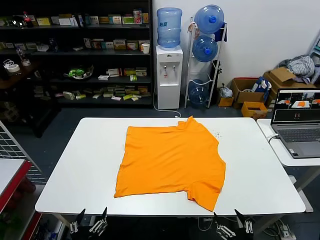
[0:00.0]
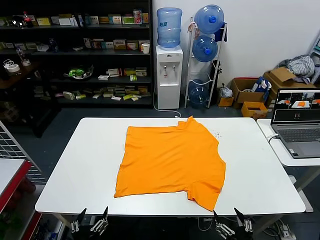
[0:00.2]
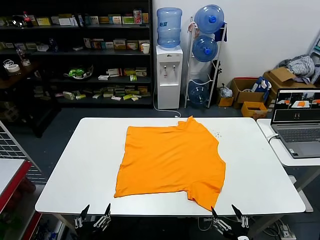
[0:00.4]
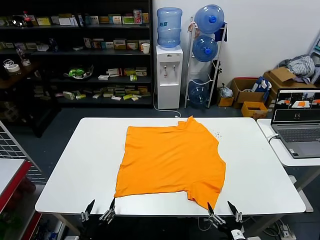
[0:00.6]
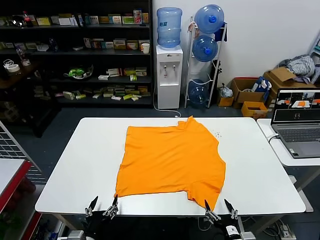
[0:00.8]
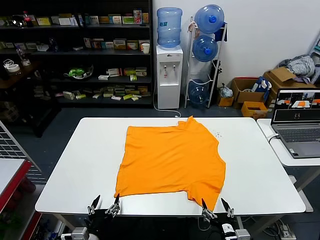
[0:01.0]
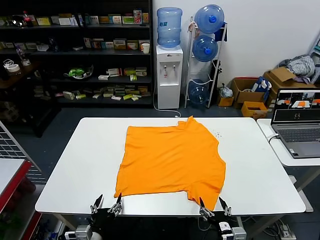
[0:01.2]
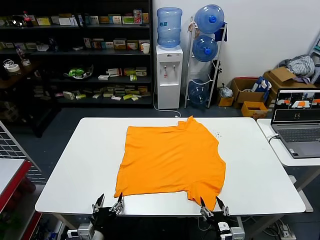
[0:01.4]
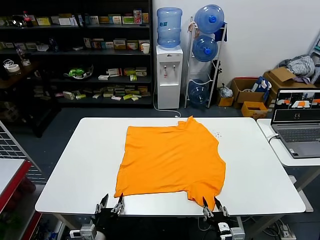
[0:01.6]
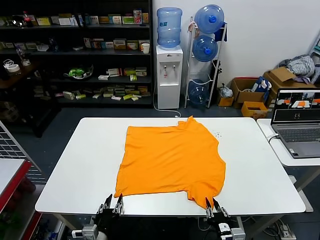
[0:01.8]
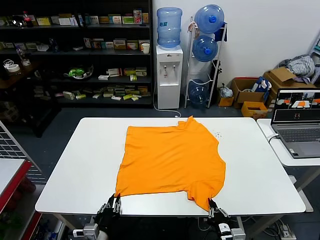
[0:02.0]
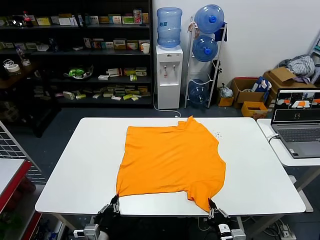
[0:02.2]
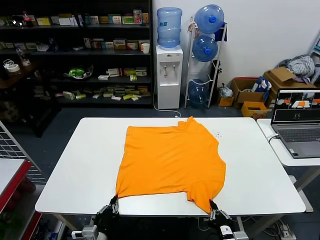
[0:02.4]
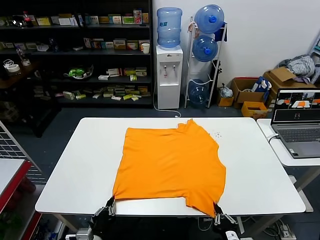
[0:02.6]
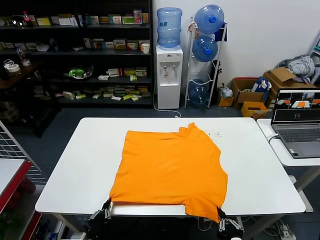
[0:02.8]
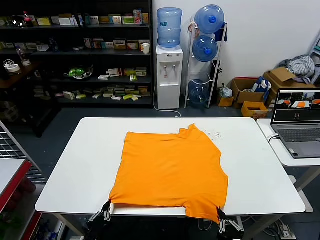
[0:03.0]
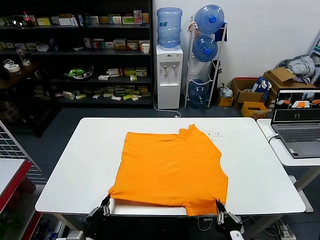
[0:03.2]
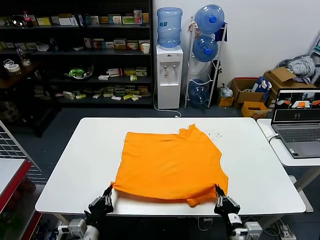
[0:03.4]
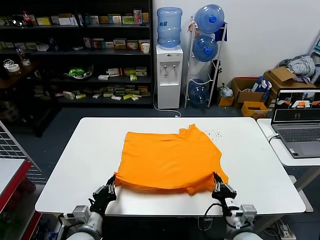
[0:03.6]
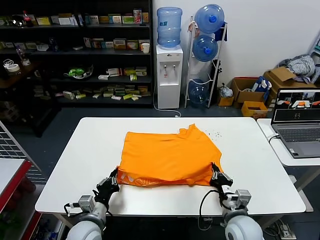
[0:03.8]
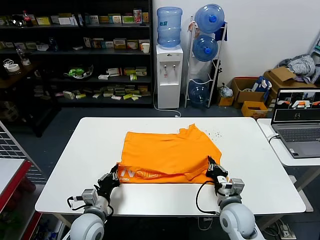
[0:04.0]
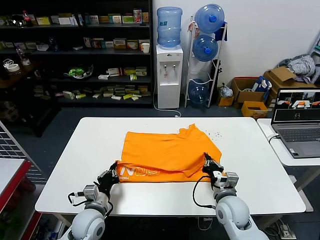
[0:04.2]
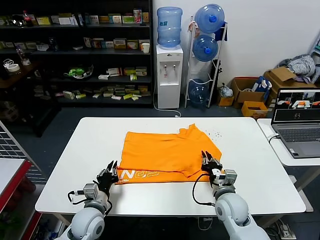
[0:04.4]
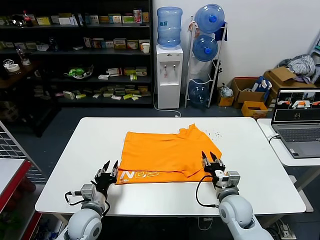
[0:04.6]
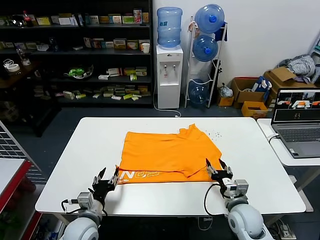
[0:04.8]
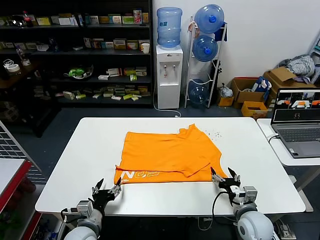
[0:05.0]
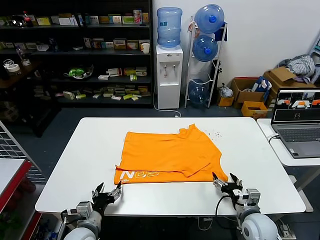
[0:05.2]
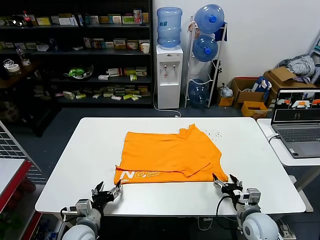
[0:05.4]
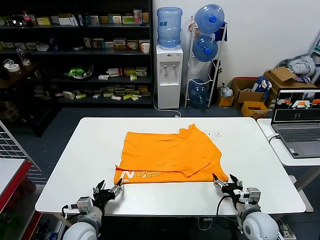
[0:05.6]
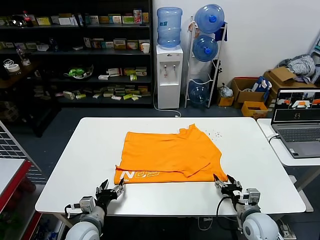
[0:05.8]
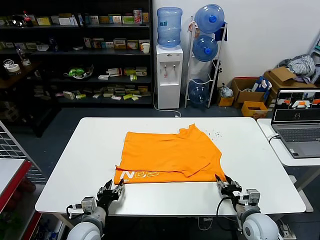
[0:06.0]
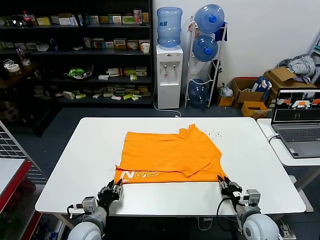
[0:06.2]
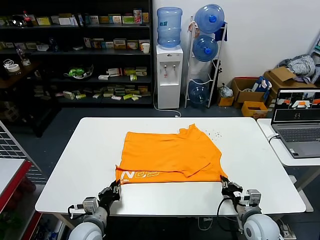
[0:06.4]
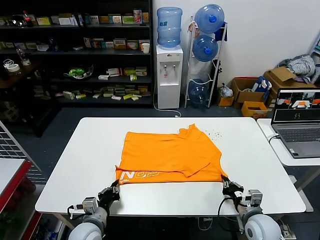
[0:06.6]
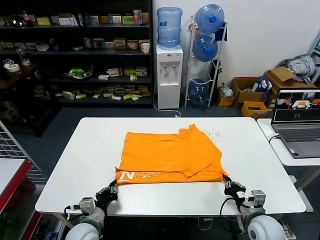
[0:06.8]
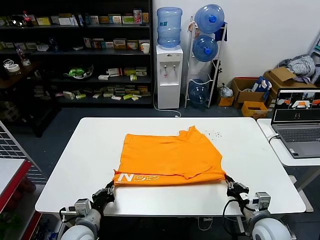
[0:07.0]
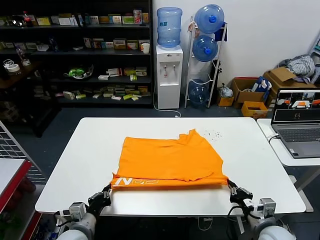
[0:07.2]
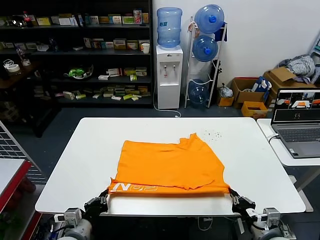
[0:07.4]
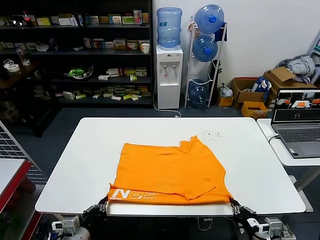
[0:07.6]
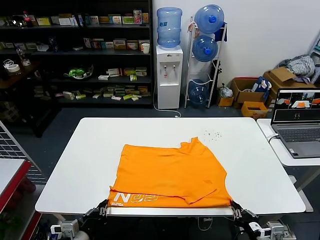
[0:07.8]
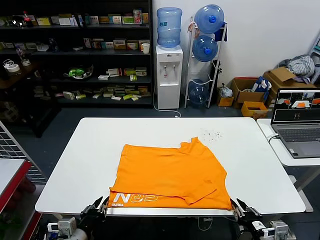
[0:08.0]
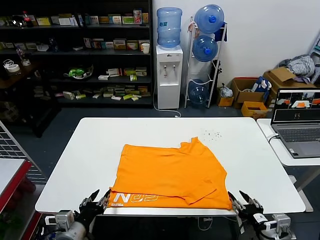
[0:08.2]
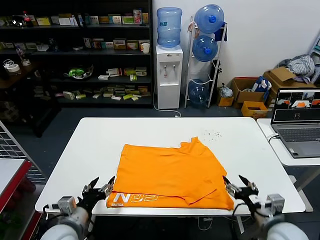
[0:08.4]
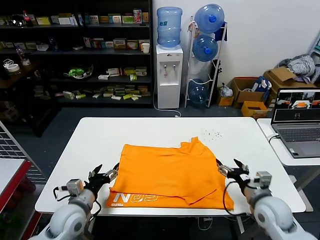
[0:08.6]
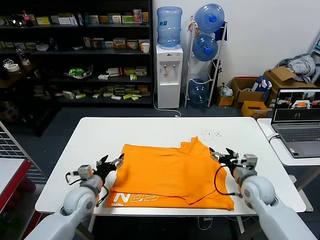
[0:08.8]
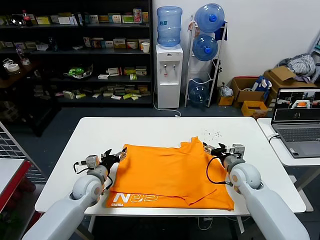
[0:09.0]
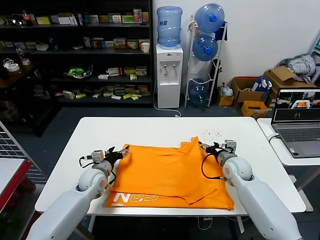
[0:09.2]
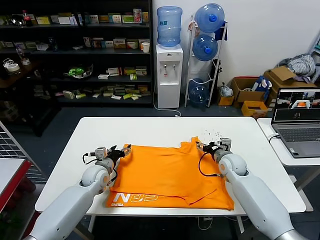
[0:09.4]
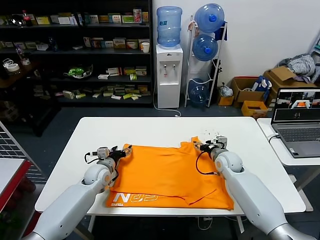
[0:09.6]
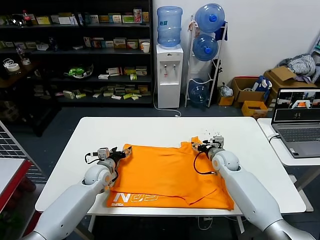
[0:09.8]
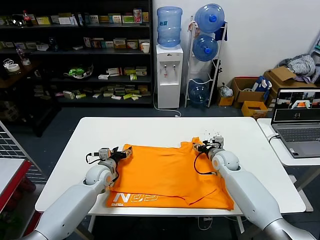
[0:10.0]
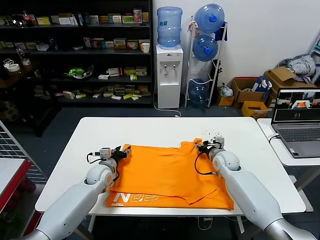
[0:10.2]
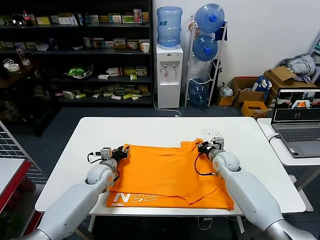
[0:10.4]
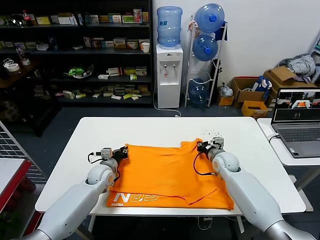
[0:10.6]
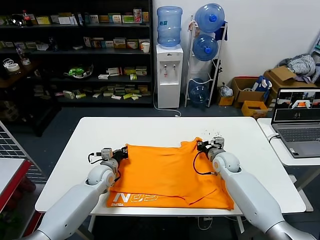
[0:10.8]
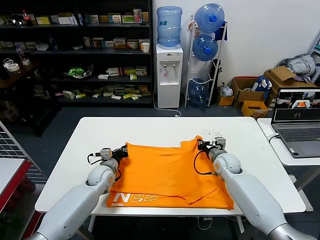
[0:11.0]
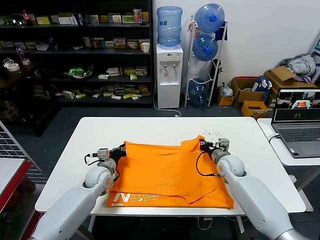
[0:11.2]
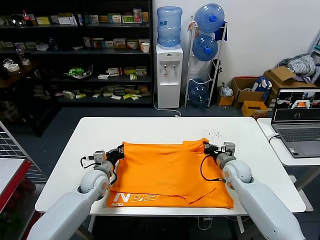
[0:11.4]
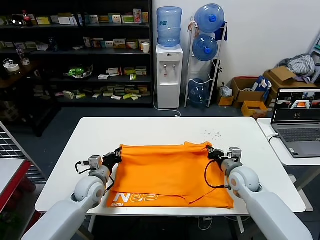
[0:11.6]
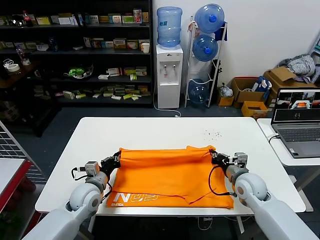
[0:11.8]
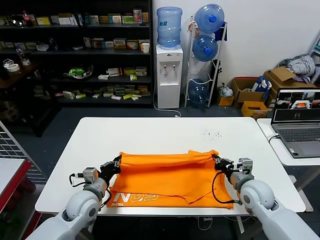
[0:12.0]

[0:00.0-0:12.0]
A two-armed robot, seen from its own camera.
Task of the whole recording: fold and organize the clothes.
Step, 0:00.0 to 0:02.2: use both grippers simultaneously to clamp the lower edge of the clothing fabric.
Step, 0:02.4 to 0:04.4: use both grippers to drag the lower edge of the fabric forward and fold it over the upper edge.
Step, 0:04.6 to 0:07.8: Drag the clothes downward with both gripper.
Step, 0:08.0 to 0:10.6: use both grippers simultaneously to clamp the upper edge of the clothing fabric.
0:01.6 to 0:03.0: The right gripper heads upward and backward, covering some 10 cm, and closes up; the left gripper changes place by approximately 5 cm, and closes up.
0:03.0 to 0:04.4: The two grippers go approximately 20 cm forward.
0:04.4 to 0:06.0: The right gripper is displaced to the right and backward by some 10 cm, and opens and closes again; the left gripper opens.
0:06.0 to 0:07.6: The right gripper travels backward by about 10 cm, and closes. The left gripper travels backward by roughly 5 cm, and closes up.
0:07.6 to 0:09.0: The grippers both shift forward by roughly 25 cm. The left gripper opens up. The right gripper opens its fingers.
0:09.0 to 0:10.4: Both grippers move forward, approximately 10 cm. The left gripper closes up. Meanwhile the right gripper closes.
0:10.4 to 0:12.0: The right gripper is displaced backward by about 15 cm, while the left gripper heads backward and upward, covering about 15 cm, and closes up.

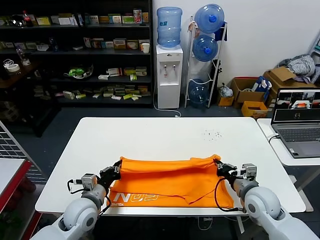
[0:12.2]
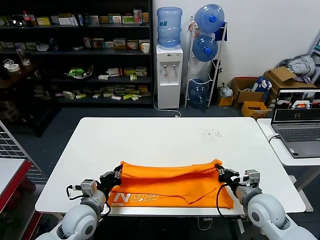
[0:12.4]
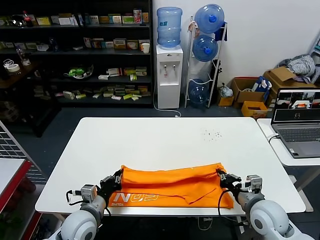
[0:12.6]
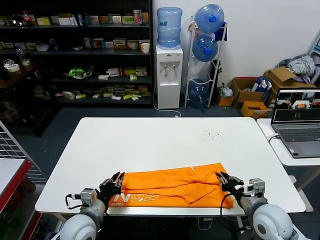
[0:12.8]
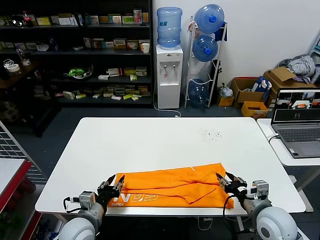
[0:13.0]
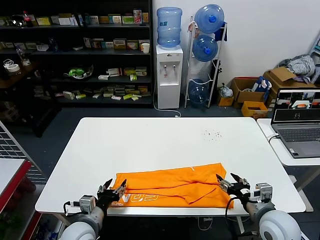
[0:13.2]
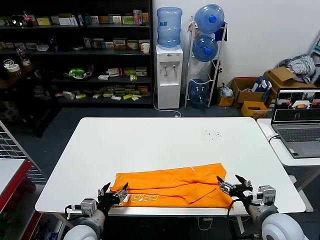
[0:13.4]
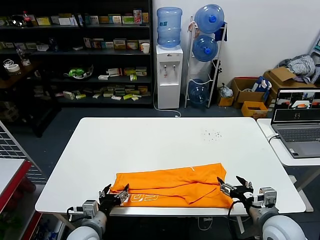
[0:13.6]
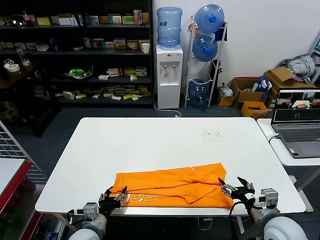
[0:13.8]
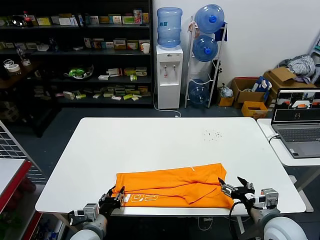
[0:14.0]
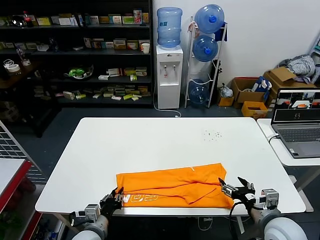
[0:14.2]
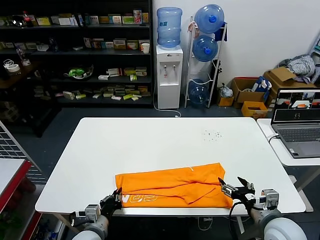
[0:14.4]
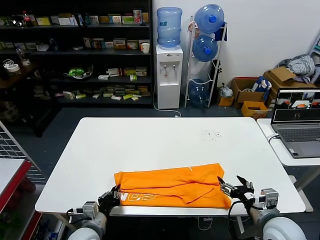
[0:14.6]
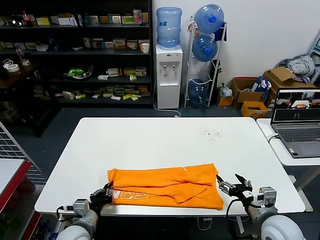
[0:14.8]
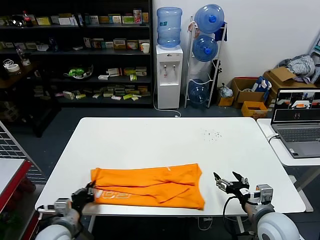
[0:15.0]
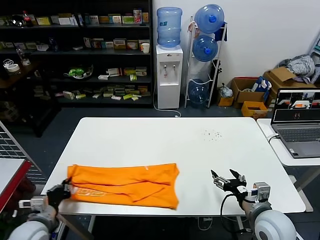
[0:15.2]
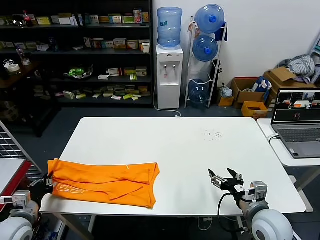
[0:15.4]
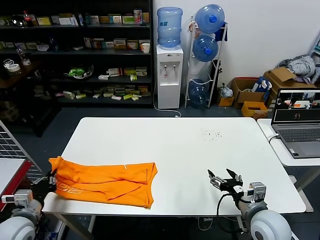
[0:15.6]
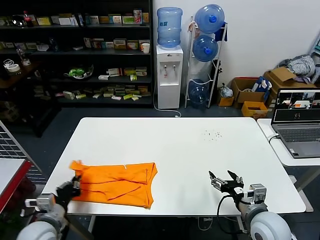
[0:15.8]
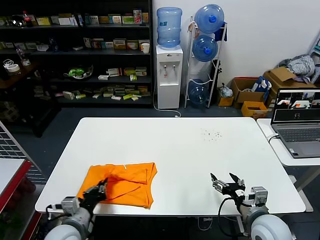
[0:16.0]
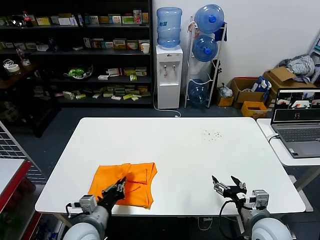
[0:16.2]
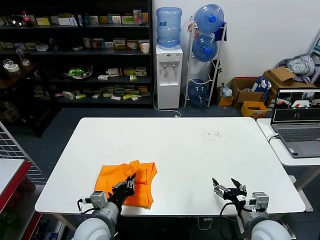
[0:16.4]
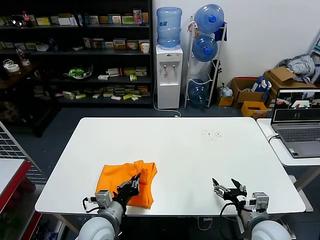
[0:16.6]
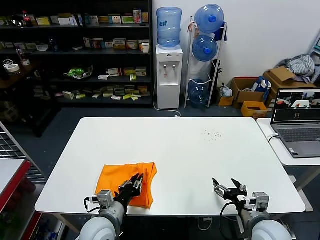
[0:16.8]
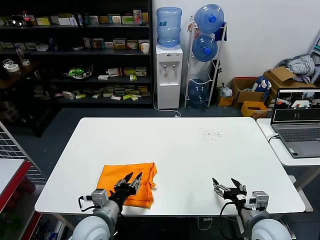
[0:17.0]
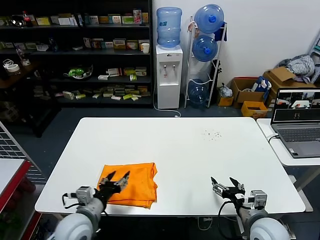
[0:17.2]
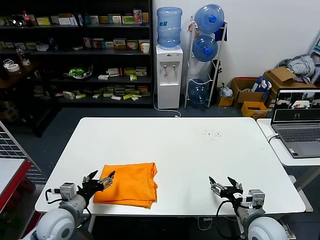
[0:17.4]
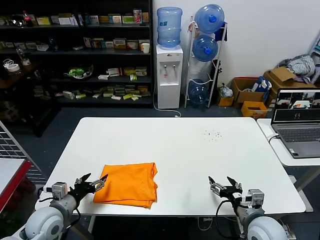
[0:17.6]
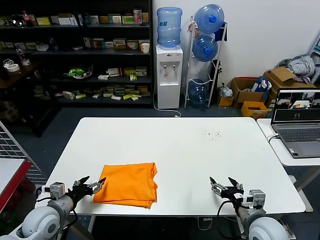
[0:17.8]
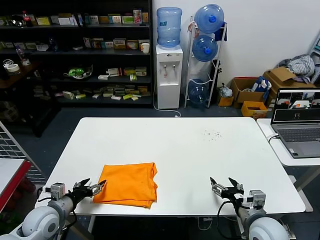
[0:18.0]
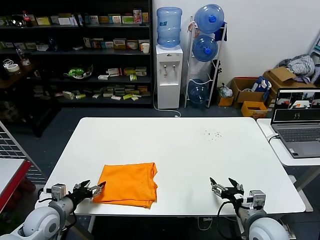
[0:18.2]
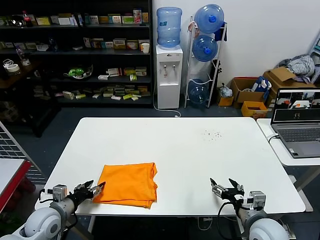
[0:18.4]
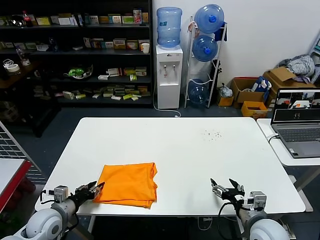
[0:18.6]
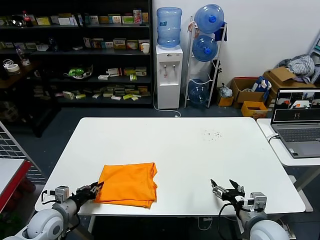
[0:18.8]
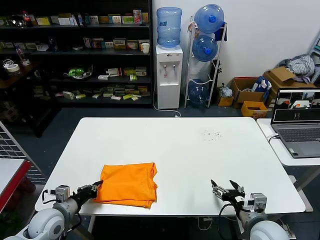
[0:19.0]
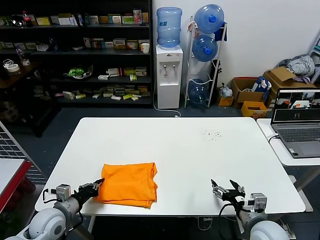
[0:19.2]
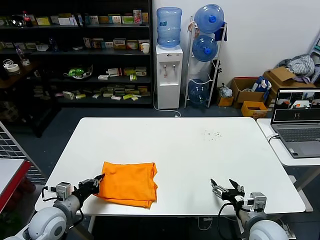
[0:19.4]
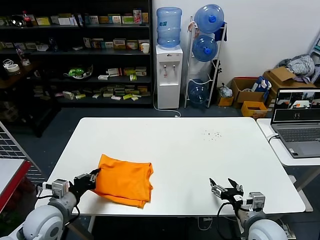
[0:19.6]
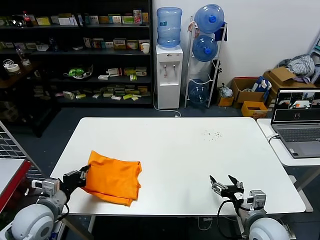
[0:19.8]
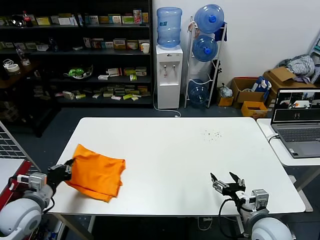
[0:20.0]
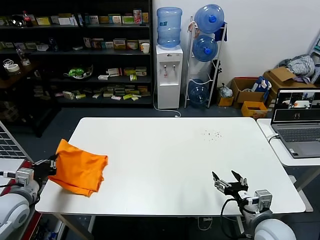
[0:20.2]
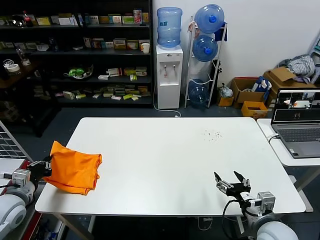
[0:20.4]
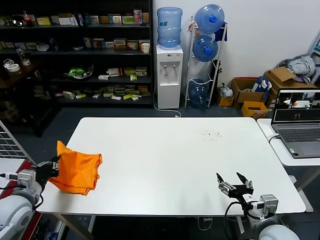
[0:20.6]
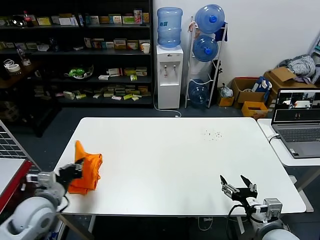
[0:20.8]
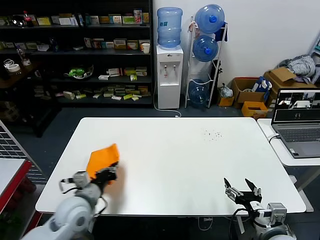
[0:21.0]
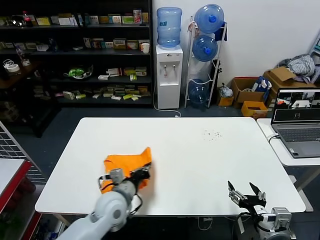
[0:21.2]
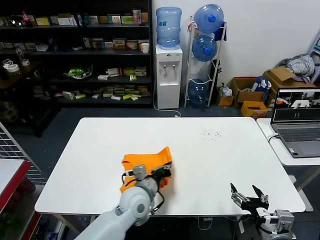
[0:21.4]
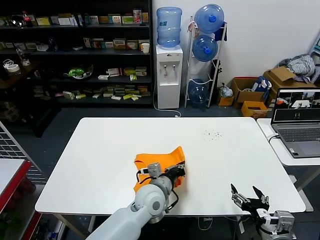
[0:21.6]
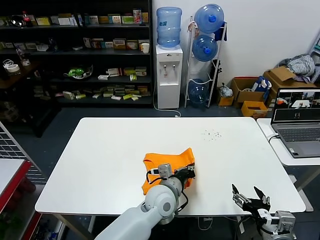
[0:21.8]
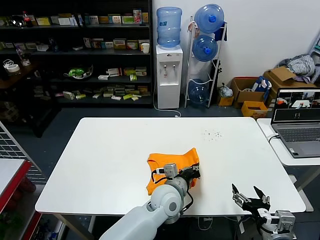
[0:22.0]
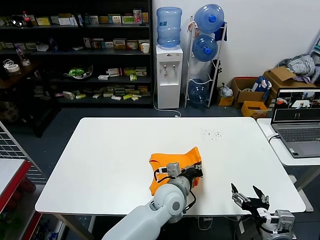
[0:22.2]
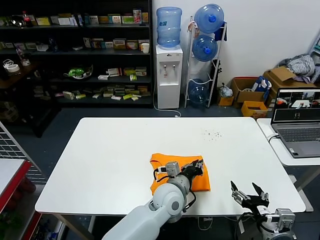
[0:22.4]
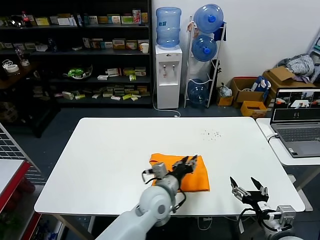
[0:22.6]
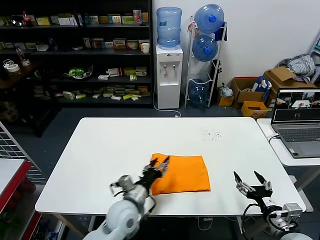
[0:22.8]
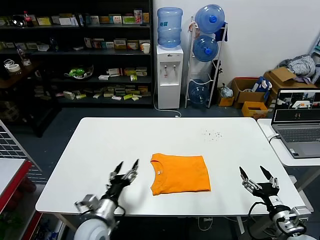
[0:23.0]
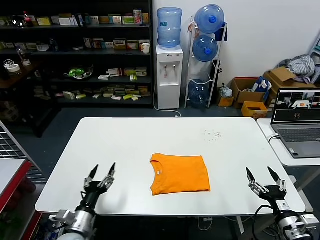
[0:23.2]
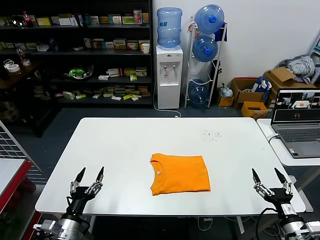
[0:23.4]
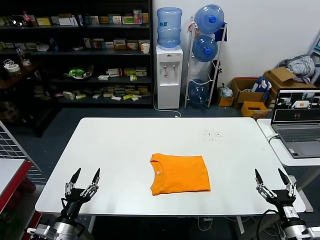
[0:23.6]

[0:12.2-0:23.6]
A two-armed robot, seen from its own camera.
Task of the whole recording: fold and organize the clothes.
Step, 0:13.0 to 0:14.4: use the left gripper to clamp the left edge of the fabric.
Step, 0:14.6 to 0:17.0: use the left gripper to drag the left edge of the fabric to the left and folds it over the right edge.
Step, 0:17.2 to 0:22.2: Flip the folded clothes over with left gripper.
0:12.2 to 0:13.6: Both grippers move backward, roughly 10 cm. The right gripper opens, while the left gripper opens its fingers.
0:13.6 to 0:15.0: The left gripper shifts some 5 cm to the left, and closes up.
0:15.0 to 0:16.4: The left gripper heads to the right, covering some 10 cm.
0:16.4 to 0:17.8: The left gripper shifts about 15 cm to the left, and opens its fingers.
0:17.8 to 0:19.4: The left gripper closes up.
0:19.4 to 0:20.8: The left gripper travels upward by some 5 cm, and reaches some 10 cm to the left, then returns.
0:20.8 to 0:22.2: The left gripper travels to the right by approximately 40 cm.
0:22.2 to 0:23.6: The left gripper goes some 35 cm to the left and backward, and opens. Meanwhile the right gripper moves to the right and downward, approximately 10 cm.
